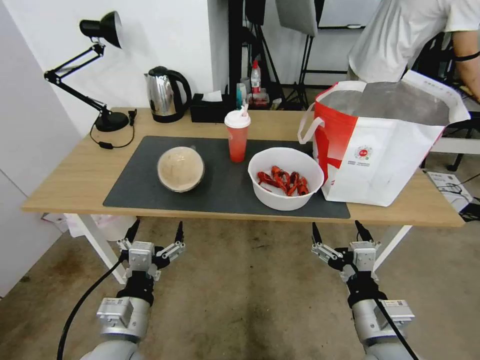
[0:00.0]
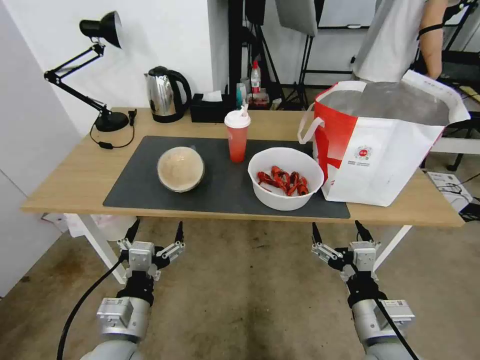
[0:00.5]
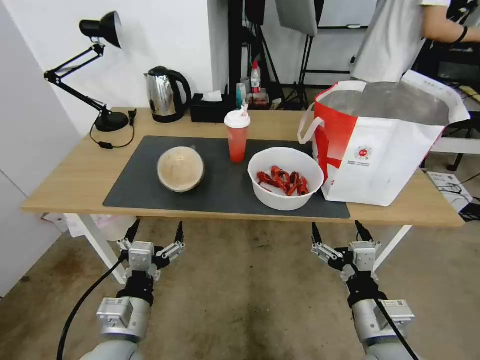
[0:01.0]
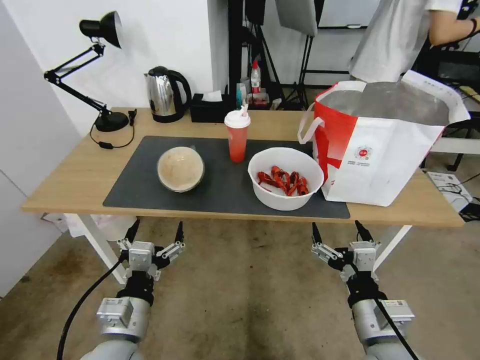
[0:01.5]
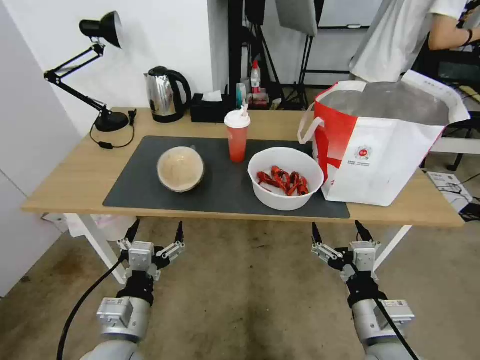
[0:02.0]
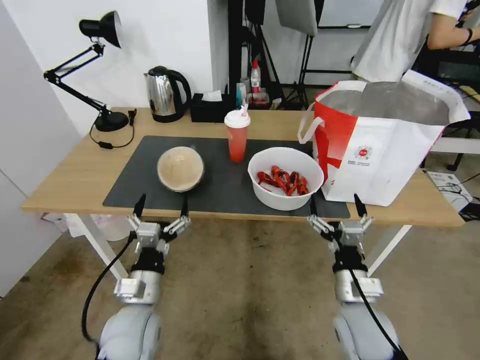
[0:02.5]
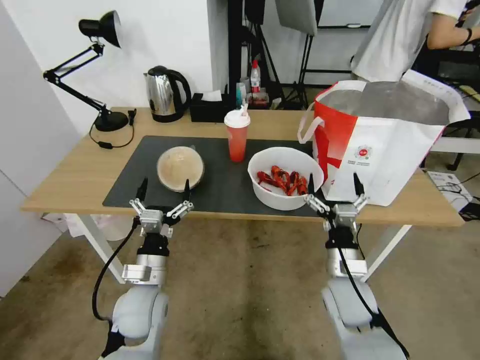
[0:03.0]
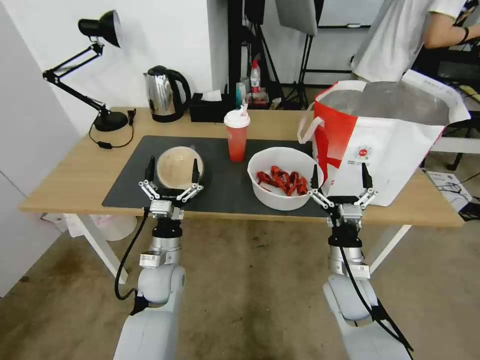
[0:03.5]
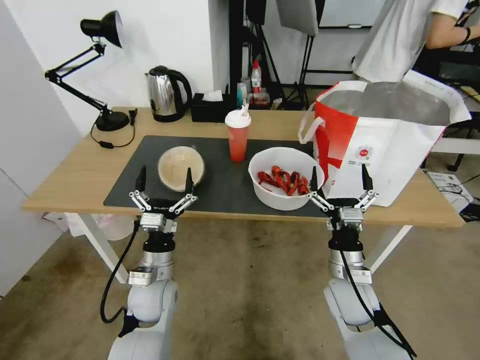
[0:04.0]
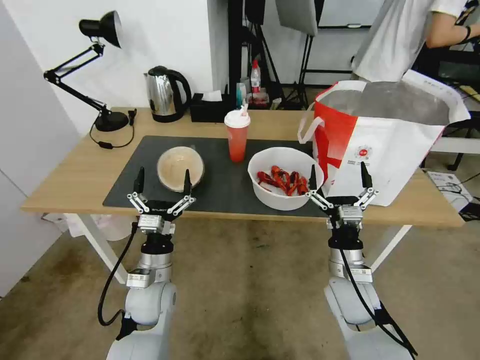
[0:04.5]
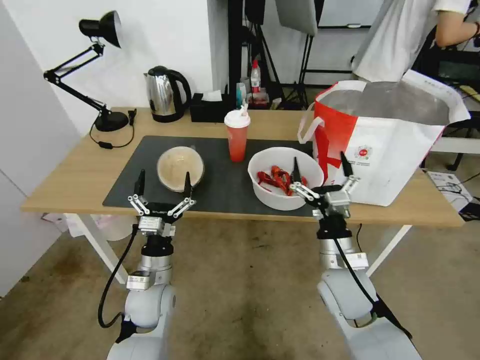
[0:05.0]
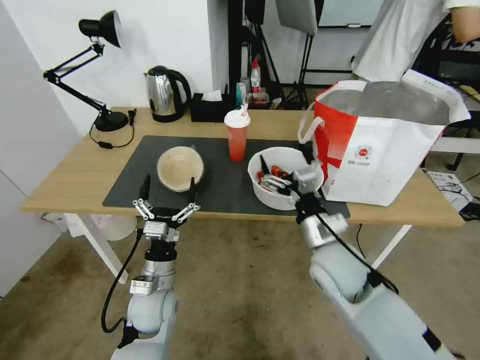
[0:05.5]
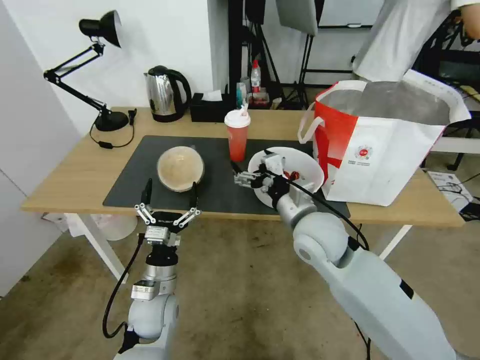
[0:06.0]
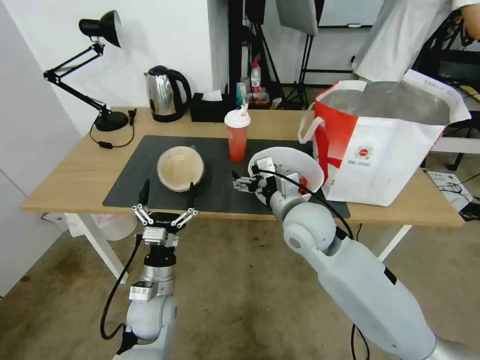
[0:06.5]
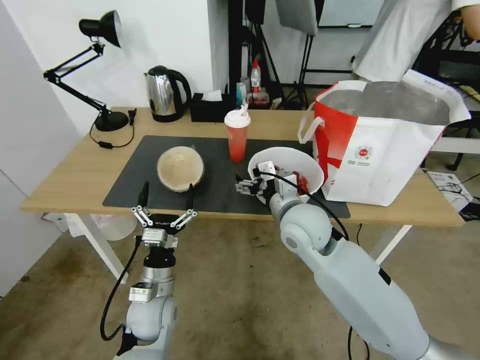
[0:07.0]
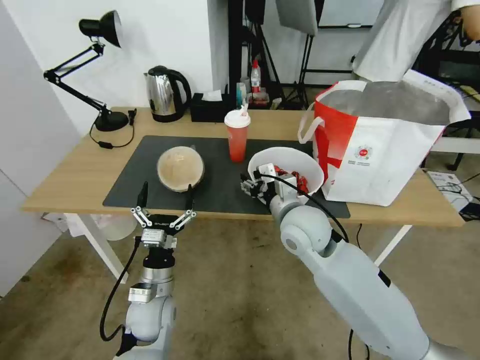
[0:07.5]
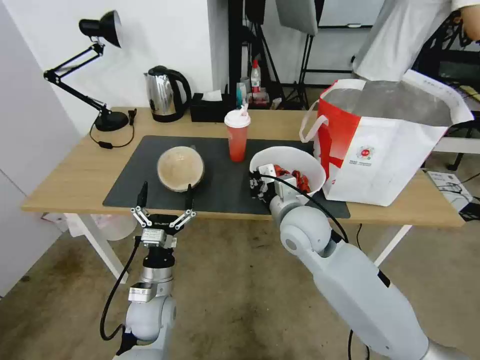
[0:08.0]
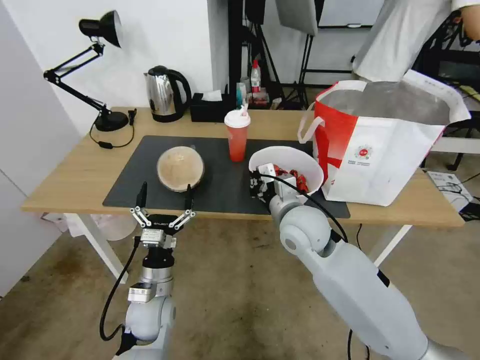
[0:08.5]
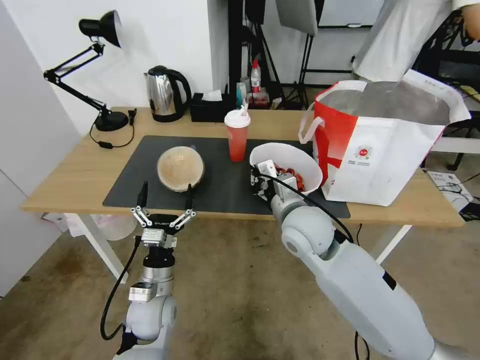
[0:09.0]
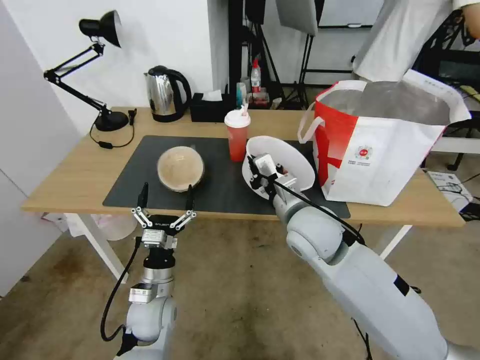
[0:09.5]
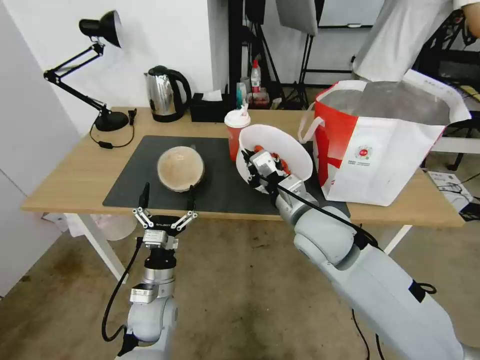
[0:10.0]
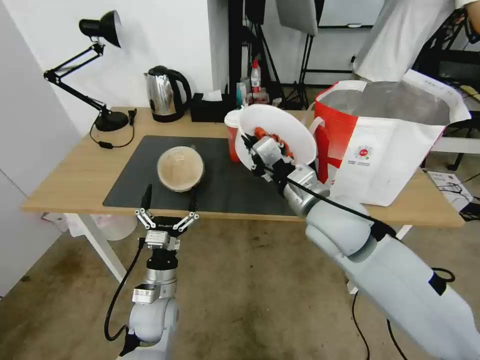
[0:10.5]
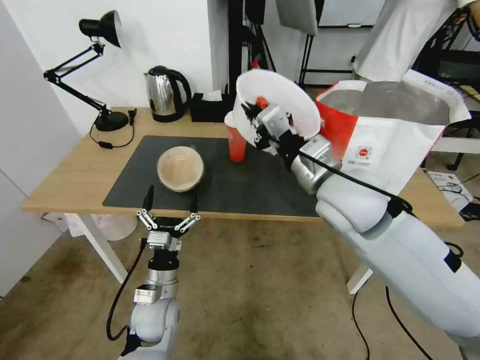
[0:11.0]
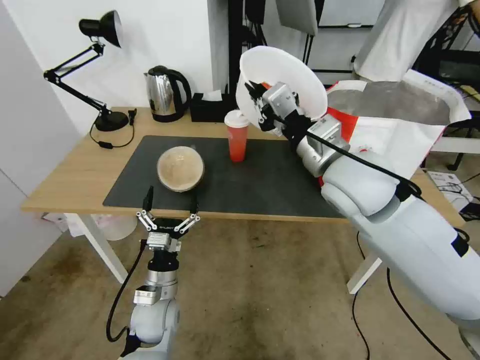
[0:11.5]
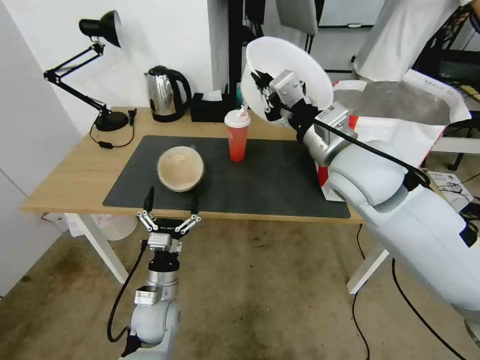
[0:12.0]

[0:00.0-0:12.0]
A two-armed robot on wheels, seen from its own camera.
Task of the whole recording: Pick up the trash from the table and place it into the takeout bag.
0:02.0 to 0:04.0: Both grippers move forward and downward, some 15 cm.
0:04.0 to 0:06.0: The right gripper heads upward, to the left and forward, covering some 15 cm.
0:06.0 to 0:08.0: The right gripper closes its fingers.
0:08.0 to 0:10.0: The right gripper ends up some 5 cm from where it was.
0:10.0 to 0:12.0: The right gripper is displaced upward by some 10 cm.

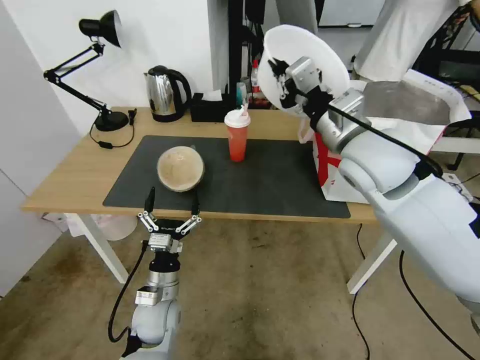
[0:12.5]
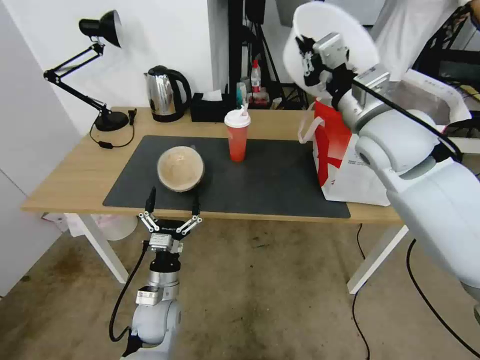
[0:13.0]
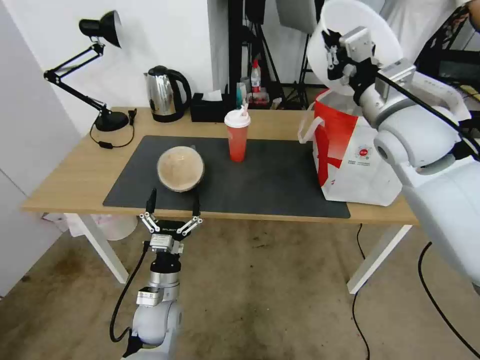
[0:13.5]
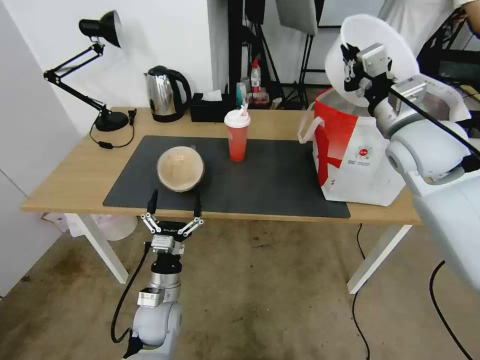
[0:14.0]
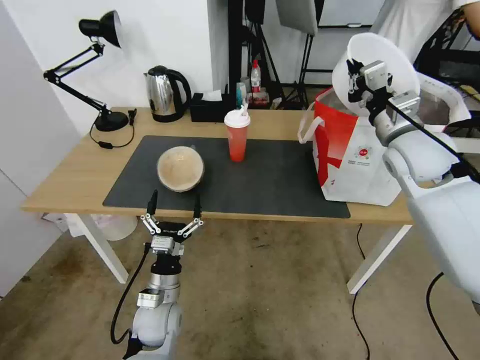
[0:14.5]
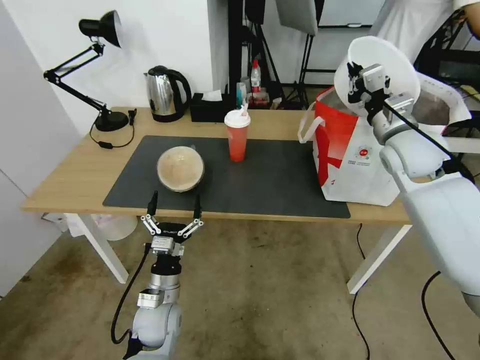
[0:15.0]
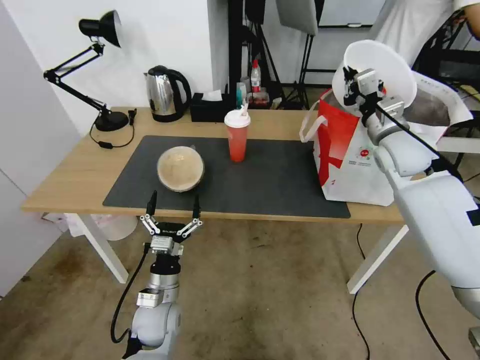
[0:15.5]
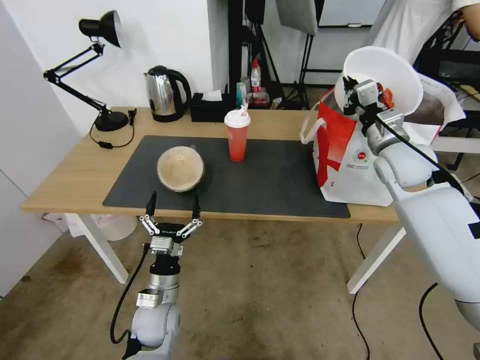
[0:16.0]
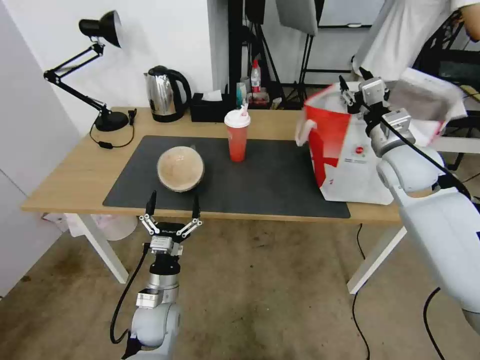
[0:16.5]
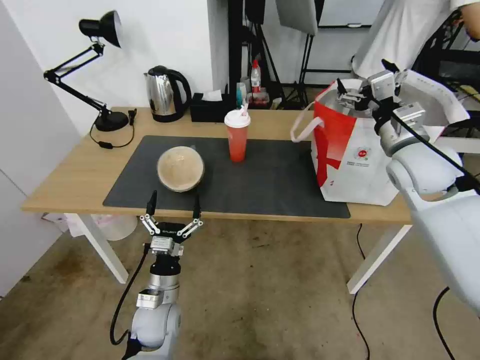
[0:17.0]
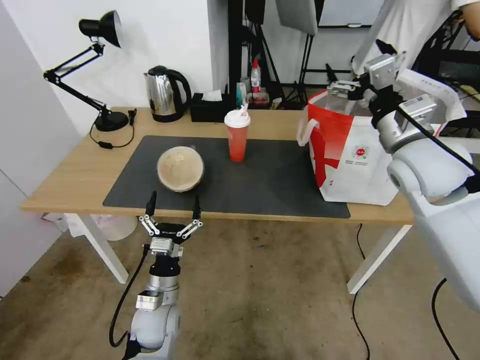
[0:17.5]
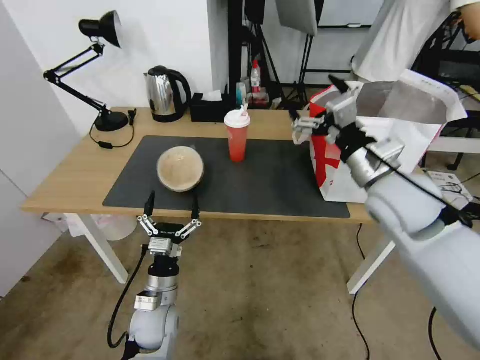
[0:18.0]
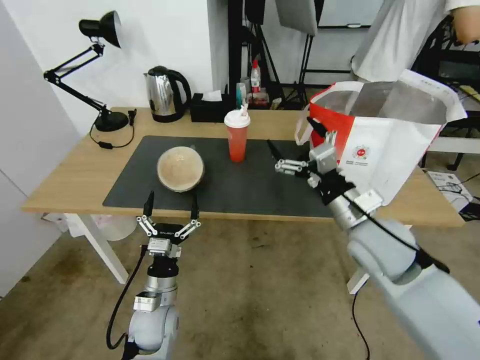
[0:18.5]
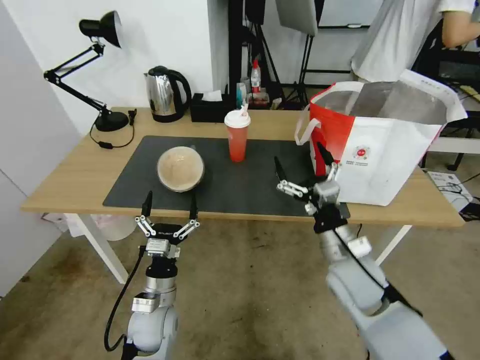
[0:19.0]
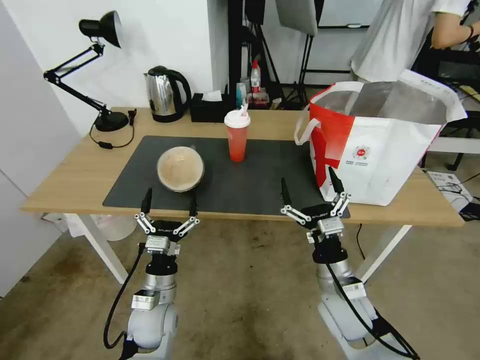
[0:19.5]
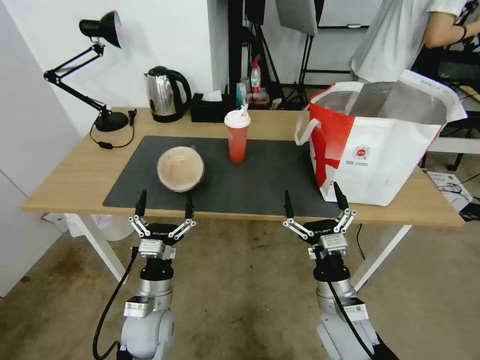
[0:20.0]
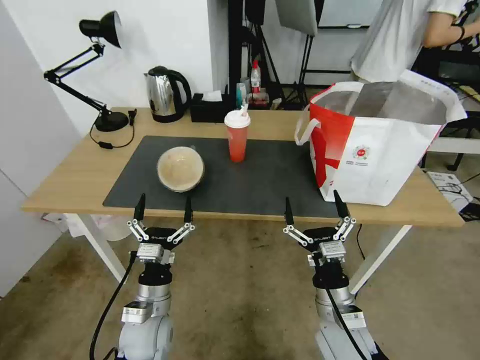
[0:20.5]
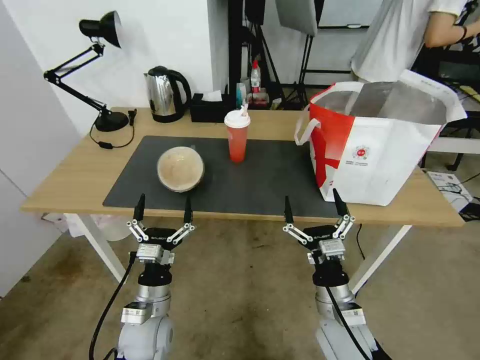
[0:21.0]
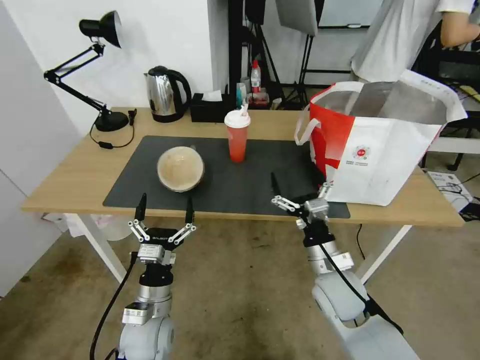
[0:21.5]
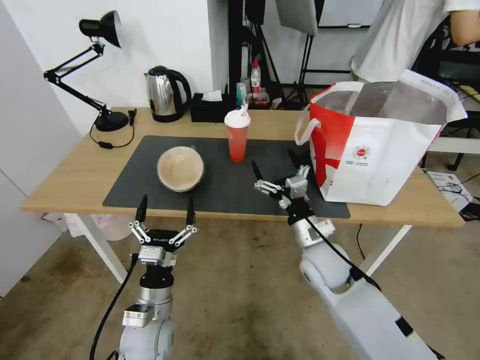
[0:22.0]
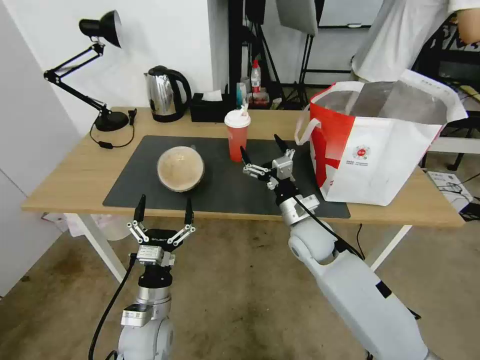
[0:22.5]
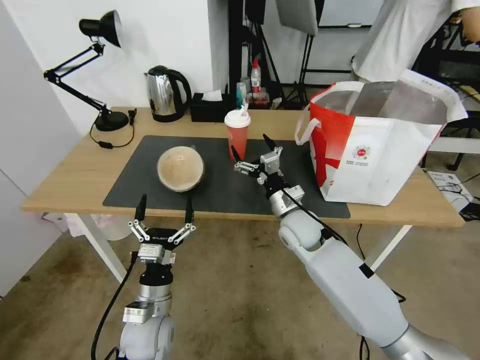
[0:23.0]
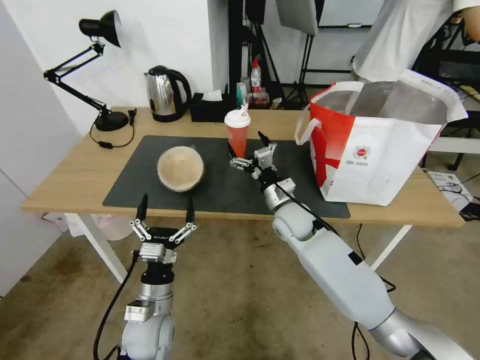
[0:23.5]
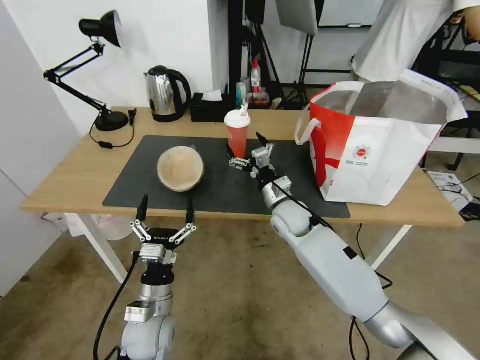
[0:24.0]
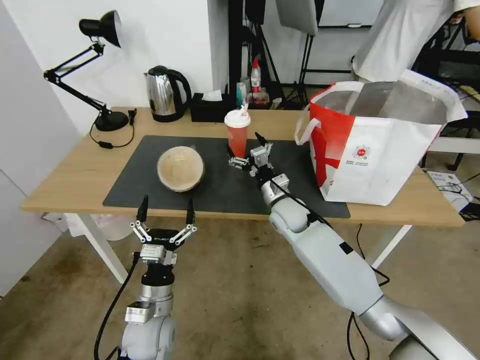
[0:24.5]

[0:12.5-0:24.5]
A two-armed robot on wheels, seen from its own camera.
Task of the whole recording: Pick up the trash from the table and place it into the takeout bag.
0:12.5 to 0:14.5: The right gripper is displaced to the right and forward by some 15 cm.
0:14.5 to 0:16.5: The right gripper opens its fingers.
0:16.5 to 0:18.5: The right gripper goes about 15 cm backward and to the left, and opens its fingers.
0:18.5 to 0:20.5: The right gripper travels downward and backward by approximately 25 cm.
0:20.5 to 0:22.5: The right gripper goes some 20 cm forward.
0:22.5 to 0:24.5: The right gripper travels forward by some 10 cm.

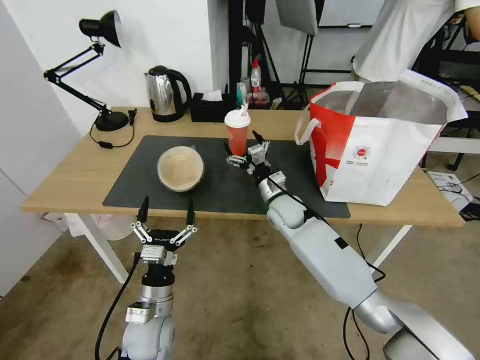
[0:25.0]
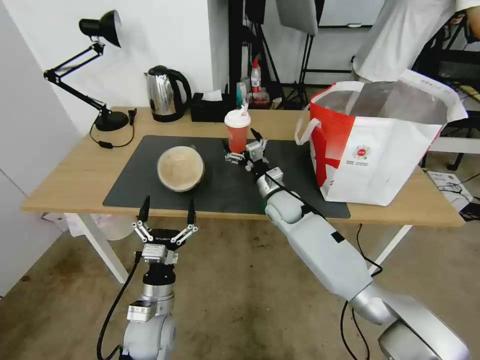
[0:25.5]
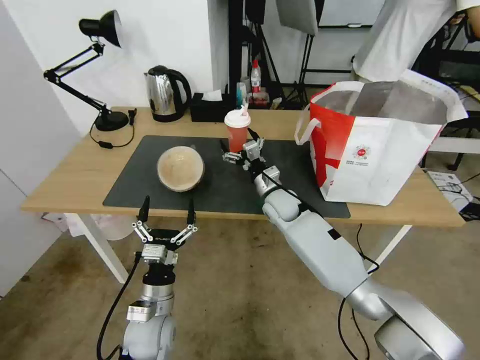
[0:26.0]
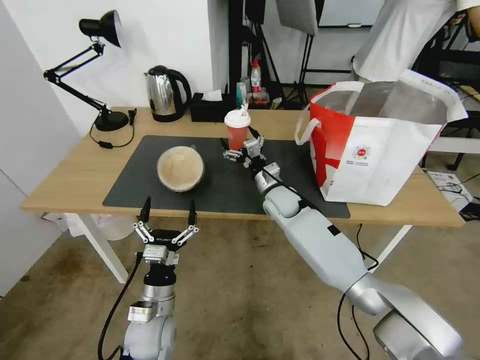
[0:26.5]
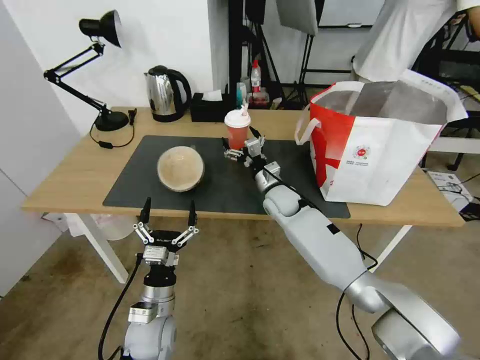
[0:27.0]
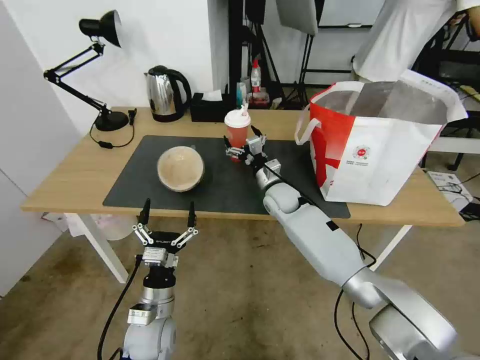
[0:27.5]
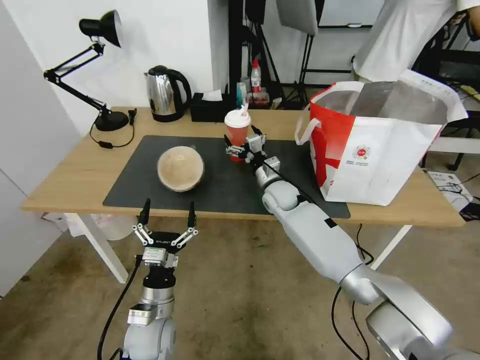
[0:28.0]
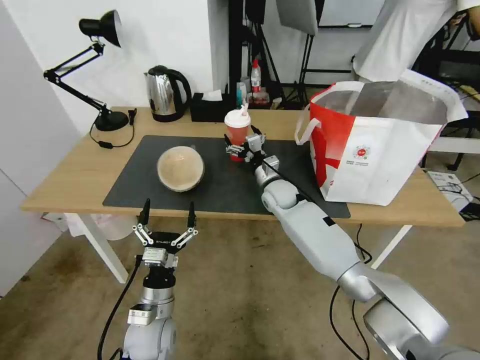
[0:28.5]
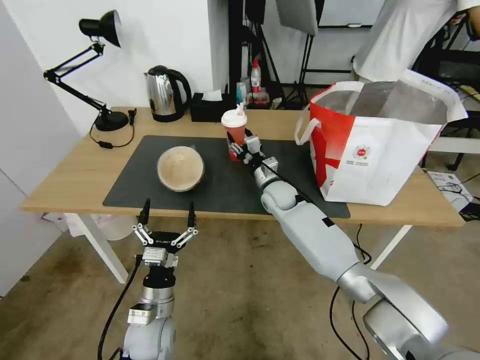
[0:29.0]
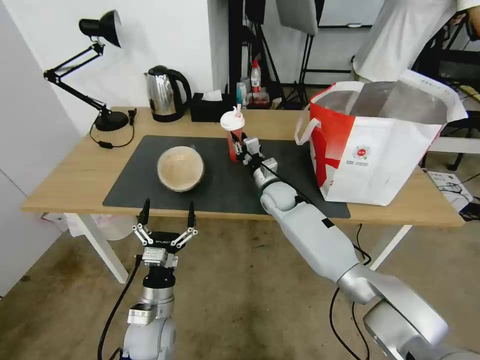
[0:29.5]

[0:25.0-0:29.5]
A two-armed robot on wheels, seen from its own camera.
Task of the whole recording: Pick up the trash from the table and place it into the takeout bag.
0:25.0 to 0:27.0: The grippers stay close to where they were, moving slightly.
0:27.0 to 0:29.5: The right gripper closes up.
